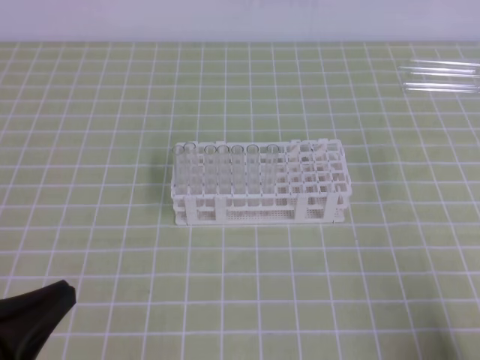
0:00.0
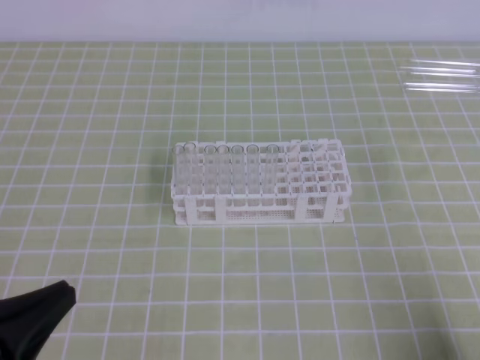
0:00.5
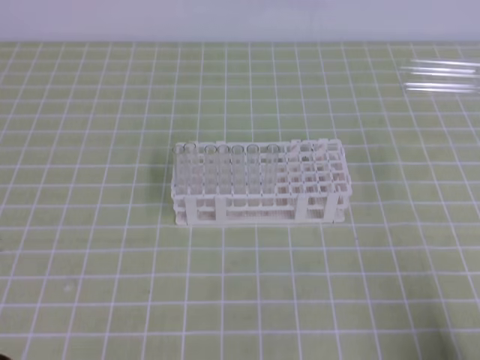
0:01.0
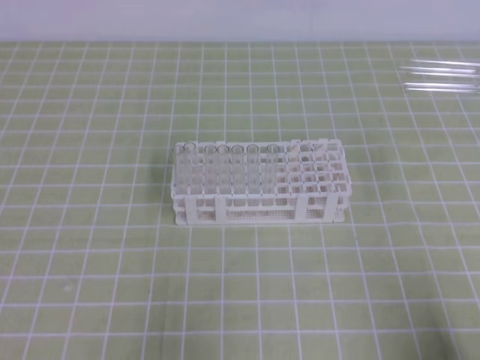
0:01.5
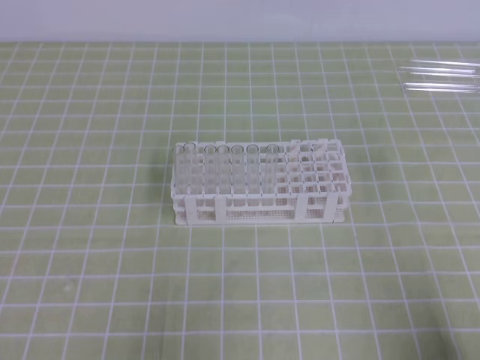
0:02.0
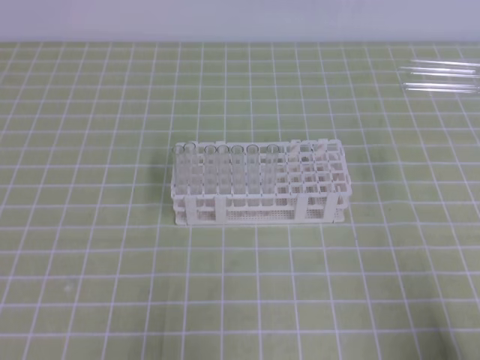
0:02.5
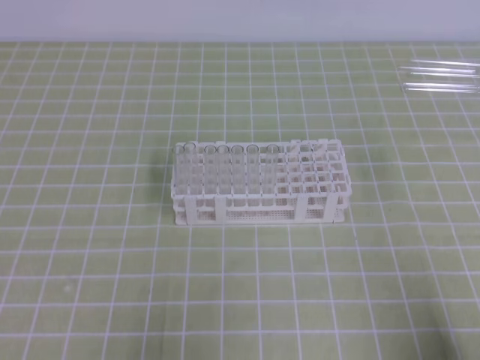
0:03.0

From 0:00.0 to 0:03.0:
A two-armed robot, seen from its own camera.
From 0:00.0 to 0:01.5: The left gripper moves downward and to the left, roughly 10 cm.
